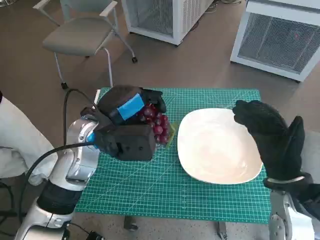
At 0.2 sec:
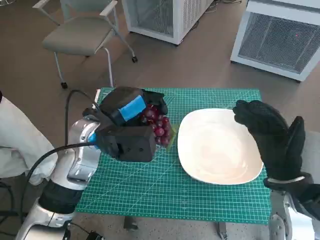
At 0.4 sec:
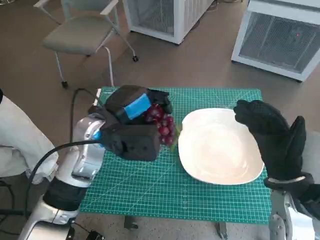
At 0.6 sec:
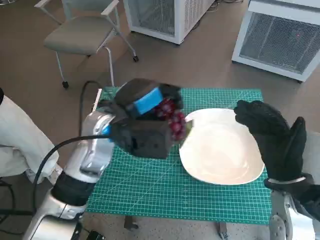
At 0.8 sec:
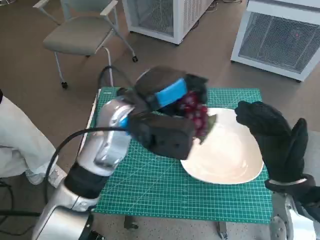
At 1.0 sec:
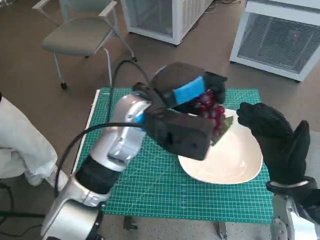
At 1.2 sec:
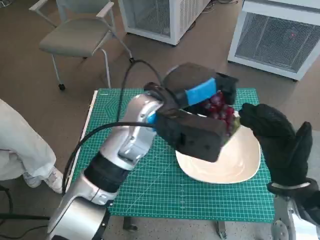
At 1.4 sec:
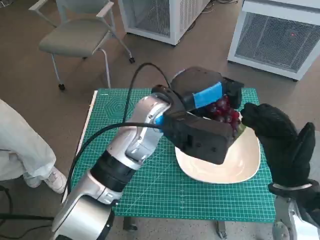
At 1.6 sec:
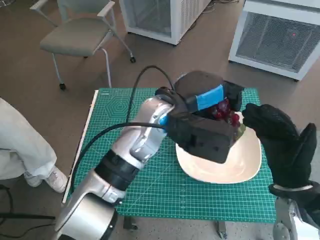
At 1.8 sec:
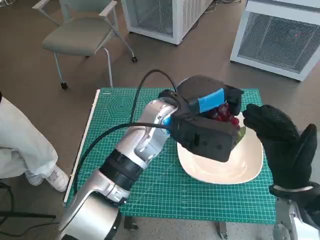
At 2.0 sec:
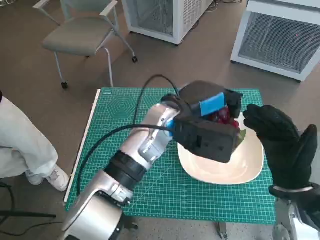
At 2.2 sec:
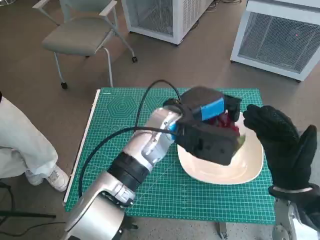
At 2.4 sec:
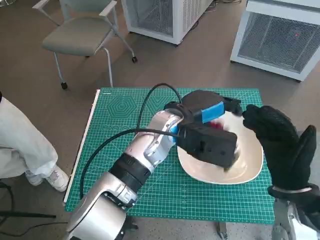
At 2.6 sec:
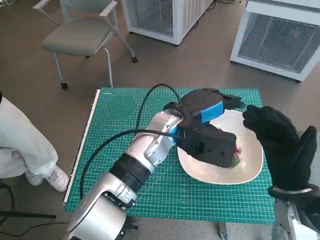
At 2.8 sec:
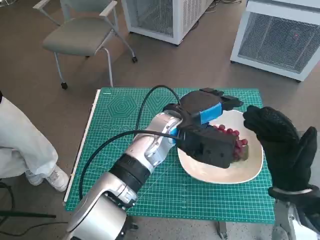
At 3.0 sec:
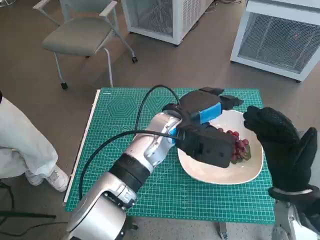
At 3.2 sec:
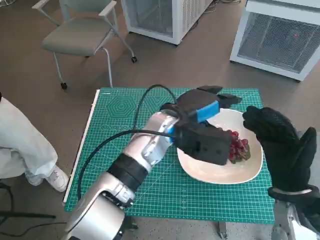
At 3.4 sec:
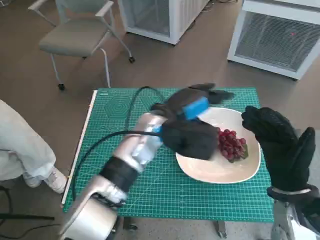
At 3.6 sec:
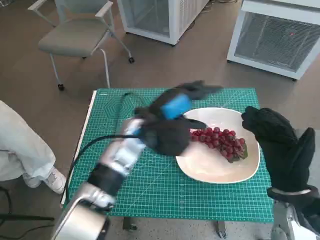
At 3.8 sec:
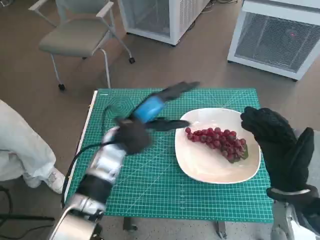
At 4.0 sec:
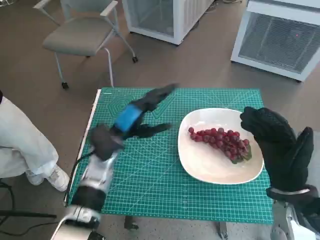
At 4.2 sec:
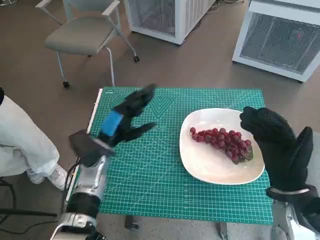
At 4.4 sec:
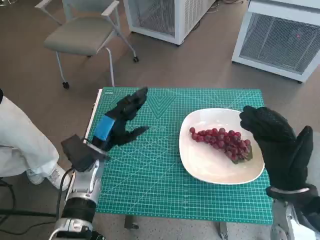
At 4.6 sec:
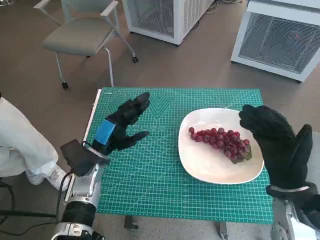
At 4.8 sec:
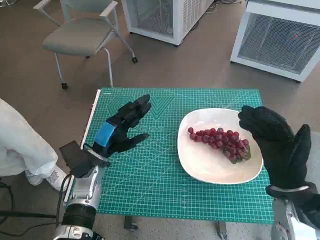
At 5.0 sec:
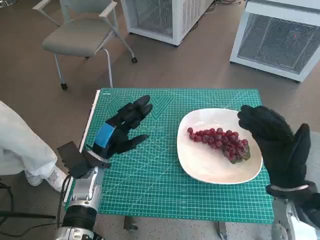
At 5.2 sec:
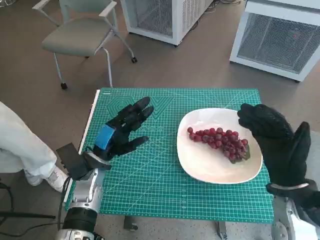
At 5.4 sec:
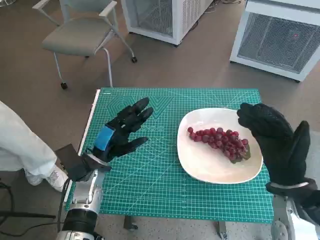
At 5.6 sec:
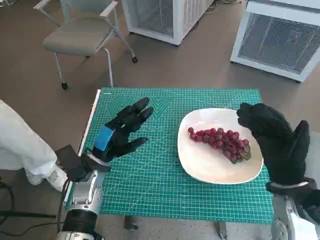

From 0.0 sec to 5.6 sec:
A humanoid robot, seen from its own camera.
Task of the whole recording: Pick up the grapes and put them on the plate.
Step, from 0.0 sec to 2.6 sec: Place the grapes in the plate with left hand.
From 0.0 sec to 1.4 sec: The left hand heads to the right, covering approximately 10 cm.
From 1.4 sec to 2.8 sec: The left hand is displaced downward by about 5 cm.
From 2.8 sec to 4.2 sec: The left hand moves to the left and downward, about 20 cm.
From 4.2 sec to 5.6 sec: The hands make only small movements.

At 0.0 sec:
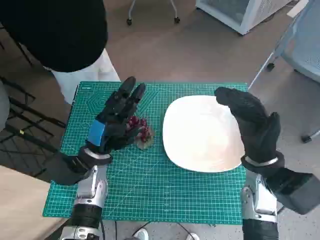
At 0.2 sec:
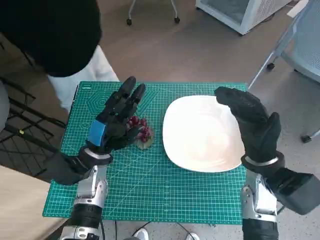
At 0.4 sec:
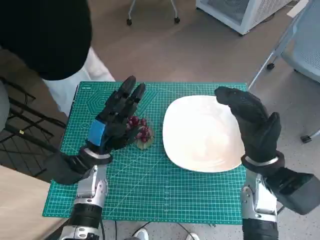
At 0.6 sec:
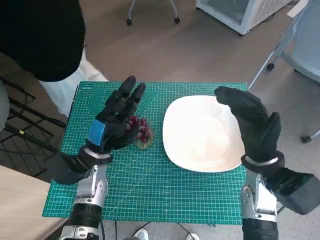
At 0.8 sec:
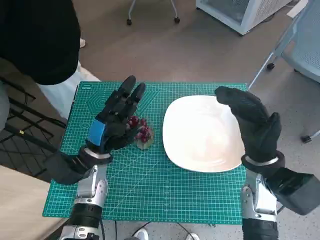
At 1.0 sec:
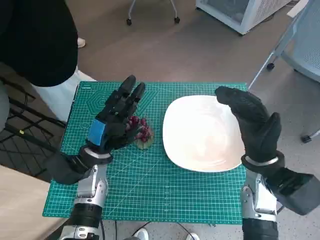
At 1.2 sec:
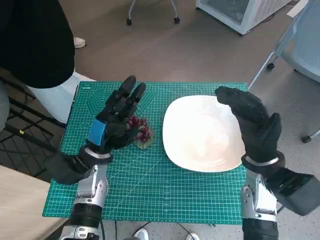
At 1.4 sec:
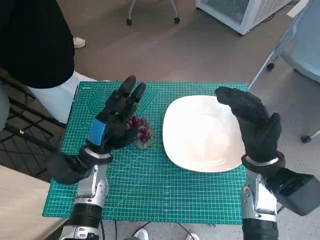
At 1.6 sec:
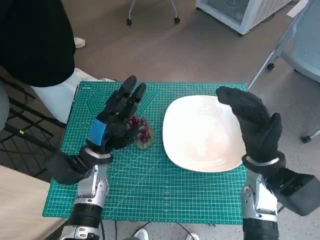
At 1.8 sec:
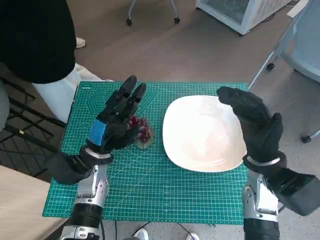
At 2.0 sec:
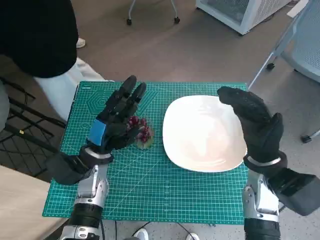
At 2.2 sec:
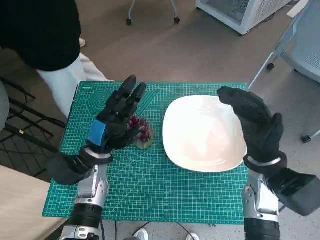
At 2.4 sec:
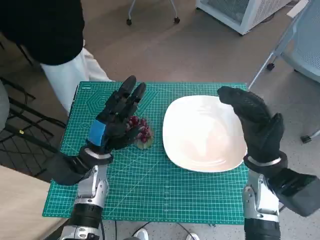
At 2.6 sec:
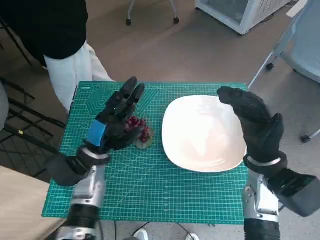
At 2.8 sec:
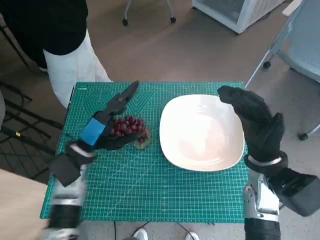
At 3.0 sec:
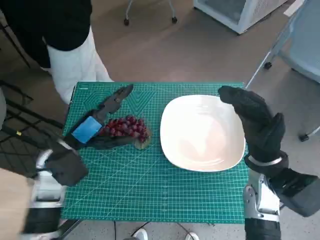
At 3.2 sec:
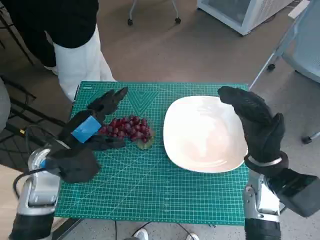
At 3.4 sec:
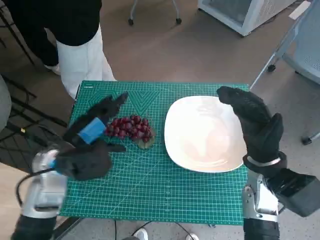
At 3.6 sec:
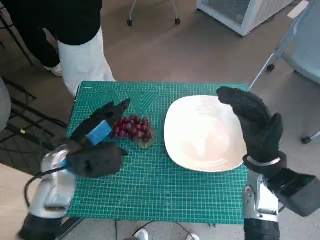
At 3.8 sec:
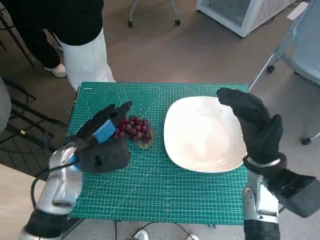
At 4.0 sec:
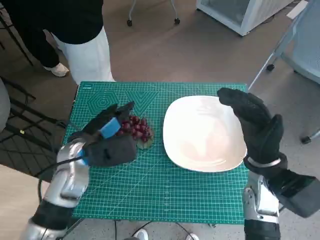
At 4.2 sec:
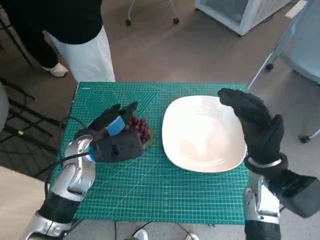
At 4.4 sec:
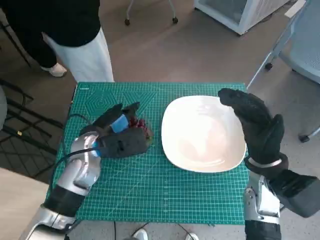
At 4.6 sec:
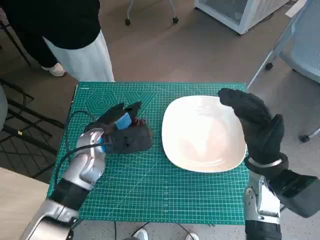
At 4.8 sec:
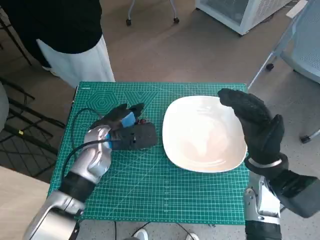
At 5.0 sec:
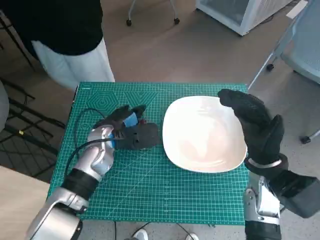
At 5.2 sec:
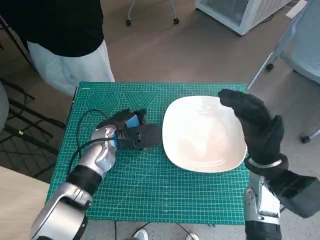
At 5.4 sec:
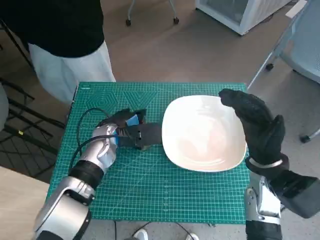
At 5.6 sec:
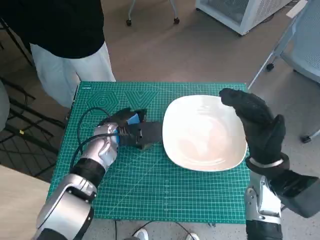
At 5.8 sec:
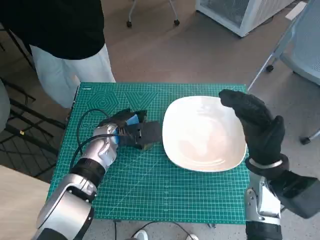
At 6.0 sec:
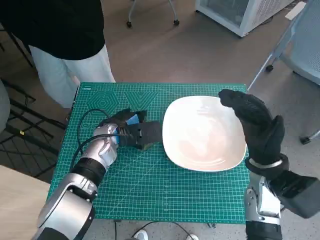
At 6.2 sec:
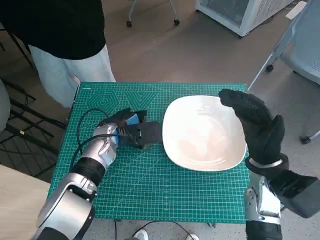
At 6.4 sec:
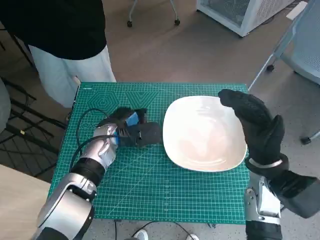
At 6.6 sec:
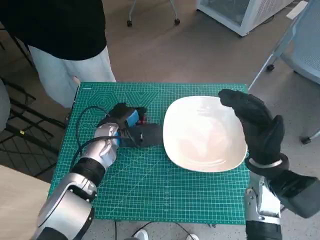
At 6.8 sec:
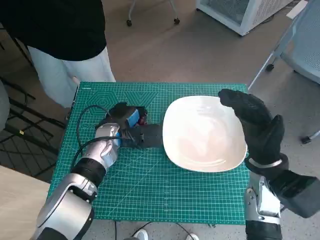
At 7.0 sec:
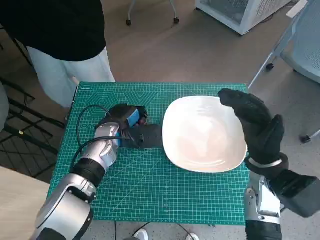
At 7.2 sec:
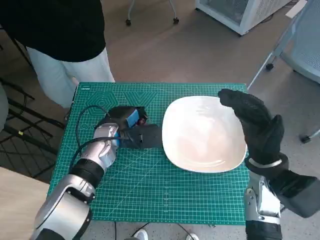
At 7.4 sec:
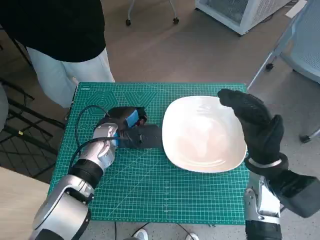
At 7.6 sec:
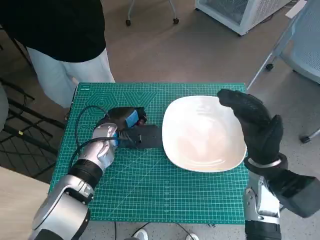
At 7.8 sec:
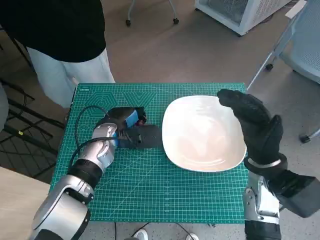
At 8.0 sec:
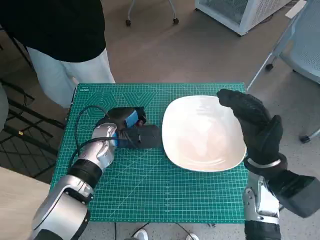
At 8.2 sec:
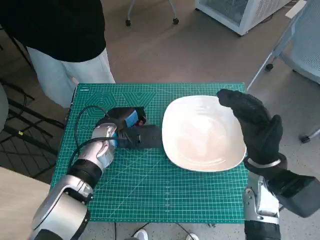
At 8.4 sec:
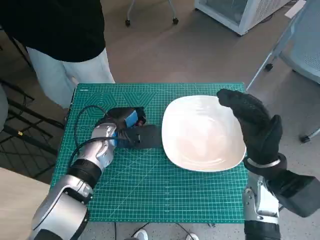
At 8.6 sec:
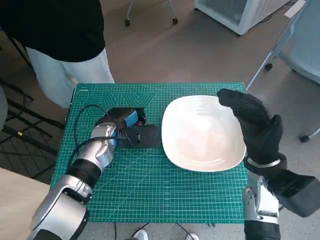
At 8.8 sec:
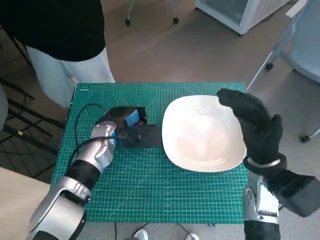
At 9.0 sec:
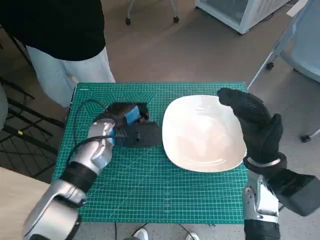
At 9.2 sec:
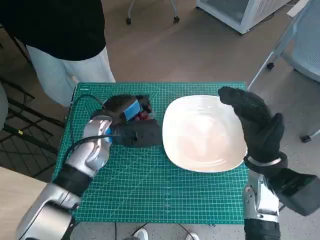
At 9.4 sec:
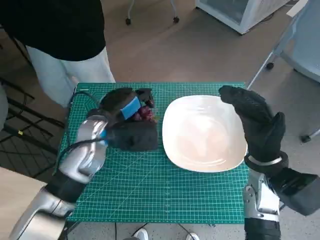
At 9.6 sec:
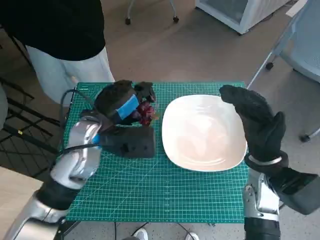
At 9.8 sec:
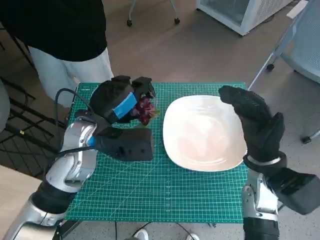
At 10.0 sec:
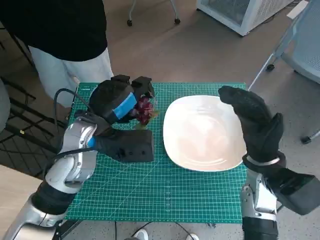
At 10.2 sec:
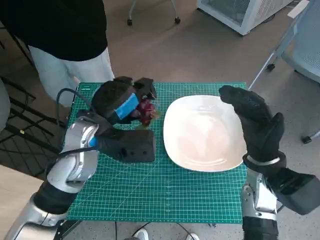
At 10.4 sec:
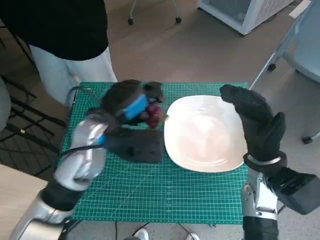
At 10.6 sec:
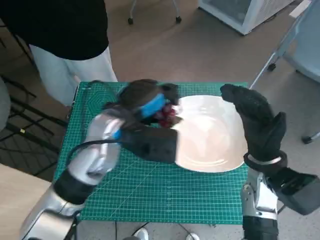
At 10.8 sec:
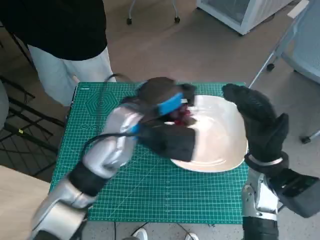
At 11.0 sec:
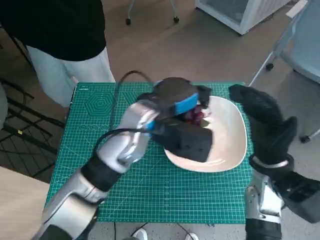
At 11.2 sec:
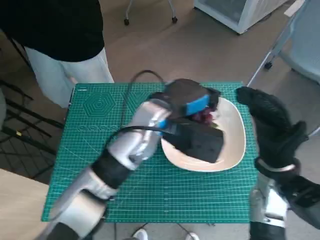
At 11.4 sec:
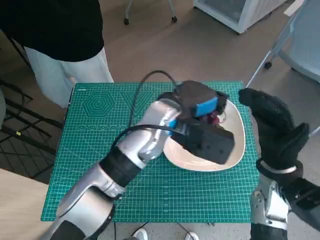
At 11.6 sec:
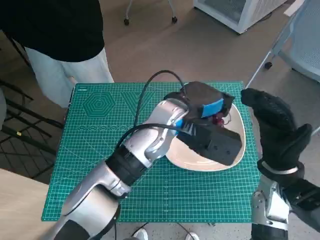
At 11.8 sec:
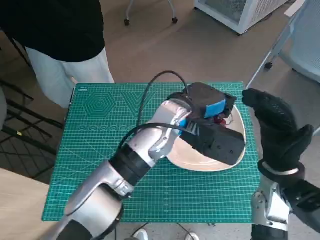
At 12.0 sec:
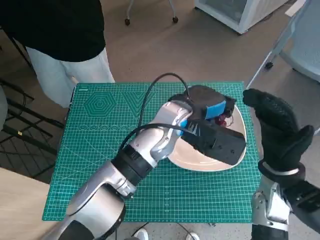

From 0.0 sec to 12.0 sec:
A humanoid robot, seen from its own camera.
Task of the whole recording: Pick up the grapes and put them on the plate.
Step, from 0.0 sec to 7.2 sec: Grasp the grapes with left hand.
From 1.6 sec to 3.0 sec: The left hand changes place by some 5 cm.
From 3.0 sec to 4.4 sec: The left hand changes place by some 5 cm.
From 4.4 sec to 6.0 sec: The left hand changes place by some 5 cm.
From 6.0 sec to 9.0 sec: The hands stay close to where they were, moving slightly.
From 9.0 sec to 10.4 sec: The left hand heads upward, covering about 10 cm.
From 10.4 sec to 12.0 sec: The left hand is displaced to the right by approximately 15 cm.

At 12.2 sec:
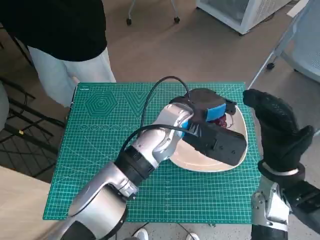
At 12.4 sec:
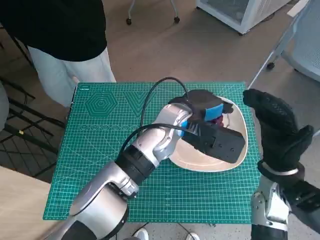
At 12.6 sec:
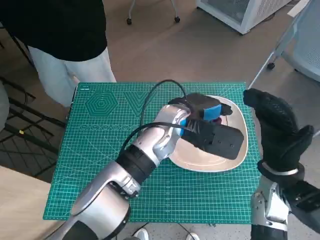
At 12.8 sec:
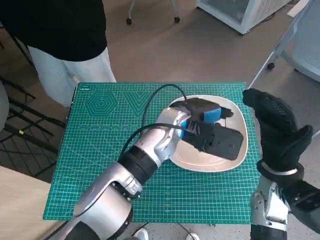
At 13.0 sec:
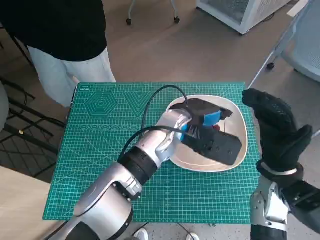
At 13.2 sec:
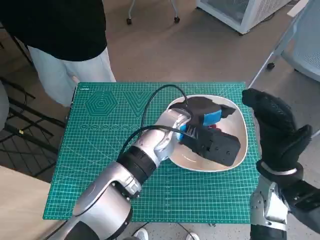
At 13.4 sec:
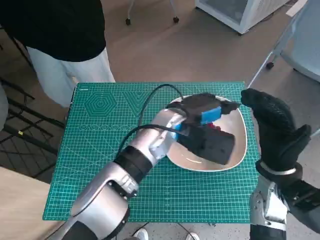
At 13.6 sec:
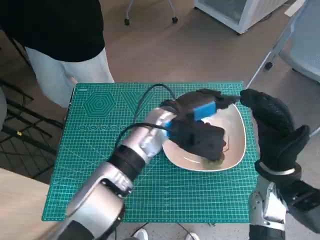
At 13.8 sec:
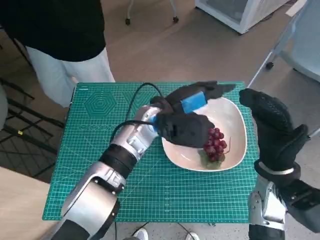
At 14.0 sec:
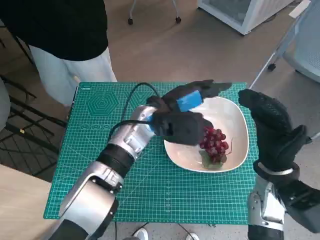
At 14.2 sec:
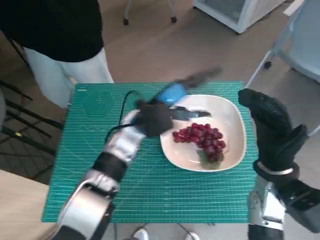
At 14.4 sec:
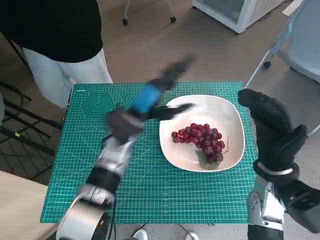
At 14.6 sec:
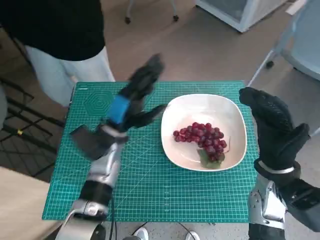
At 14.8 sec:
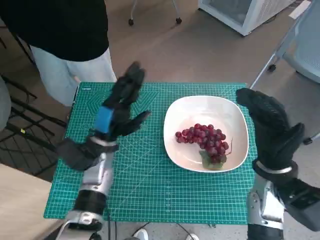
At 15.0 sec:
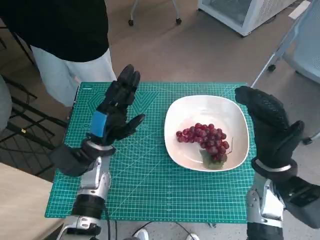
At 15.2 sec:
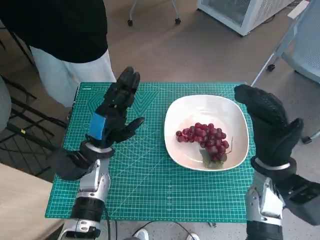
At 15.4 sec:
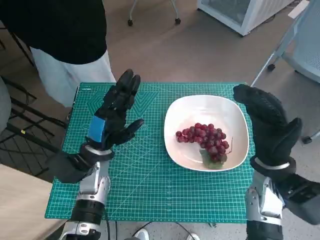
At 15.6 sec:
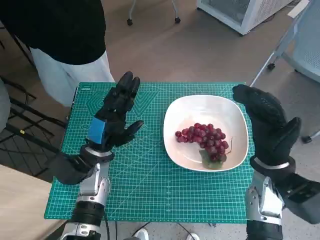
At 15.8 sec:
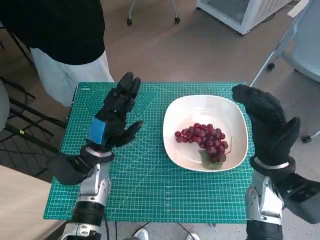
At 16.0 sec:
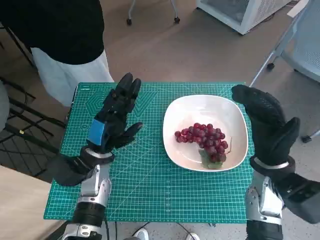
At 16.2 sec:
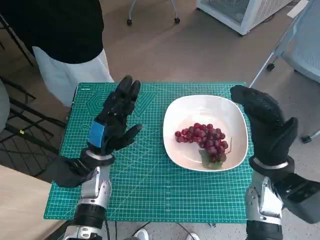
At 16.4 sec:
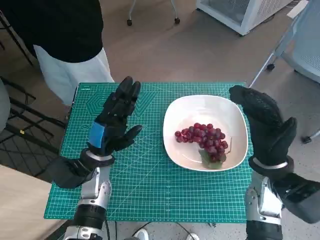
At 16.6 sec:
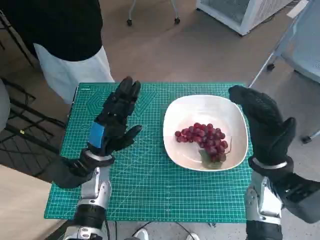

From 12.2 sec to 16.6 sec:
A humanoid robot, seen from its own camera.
Task of the whole recording: Pick up the grapes and put them on the plate.
From 12.2 sec to 13.6 sec: The hands make only small movements.
From 13.6 sec to 15.2 sec: The left hand heads to the left and downward, covering about 15 cm.
From 15.2 sec to 16.6 sec: The hands stay close to where they were, moving slightly.
